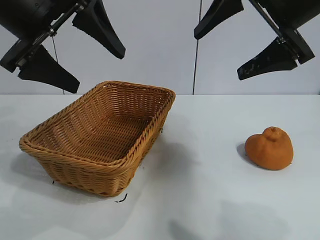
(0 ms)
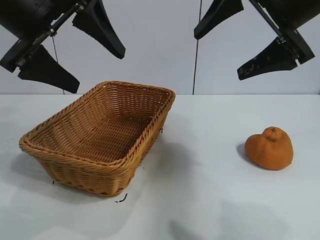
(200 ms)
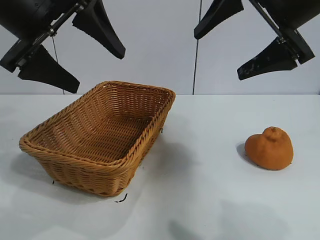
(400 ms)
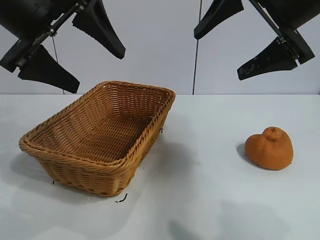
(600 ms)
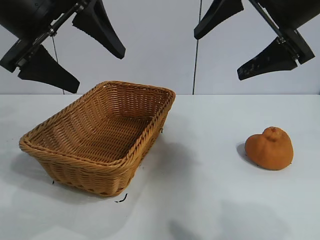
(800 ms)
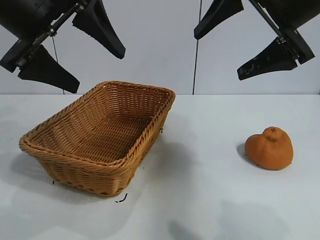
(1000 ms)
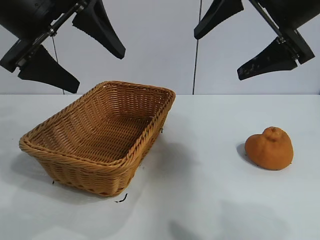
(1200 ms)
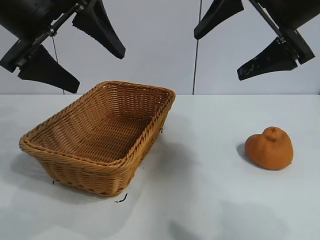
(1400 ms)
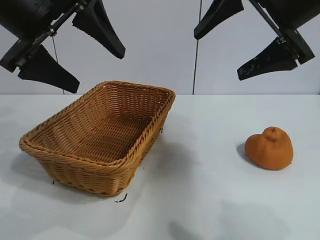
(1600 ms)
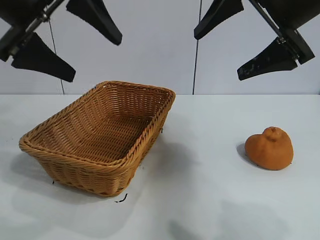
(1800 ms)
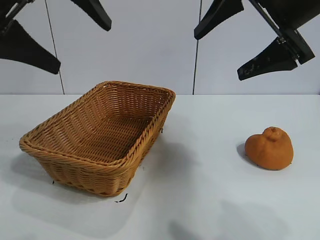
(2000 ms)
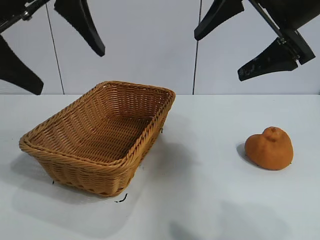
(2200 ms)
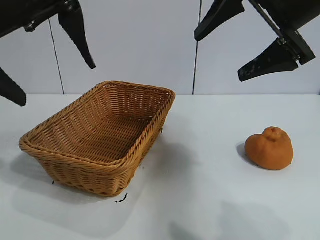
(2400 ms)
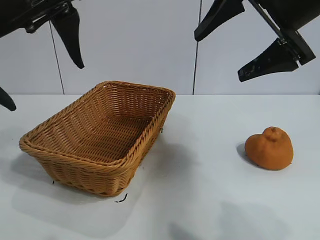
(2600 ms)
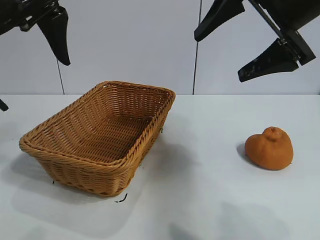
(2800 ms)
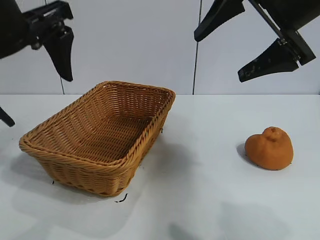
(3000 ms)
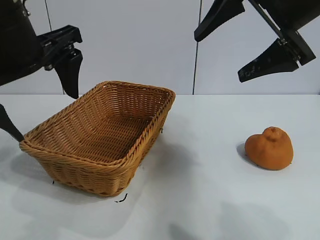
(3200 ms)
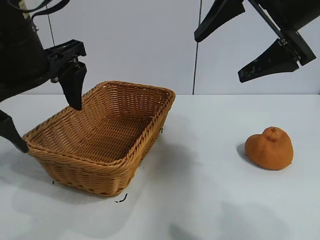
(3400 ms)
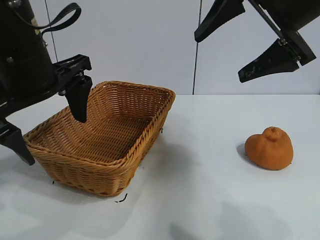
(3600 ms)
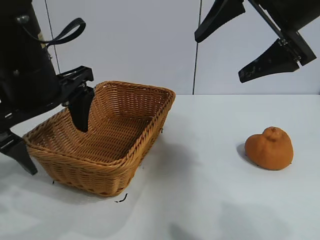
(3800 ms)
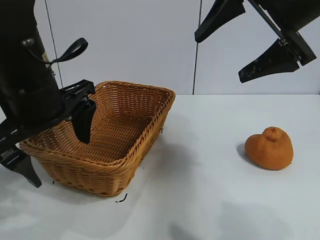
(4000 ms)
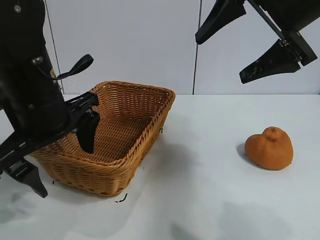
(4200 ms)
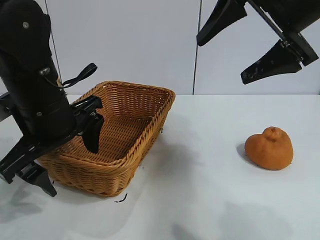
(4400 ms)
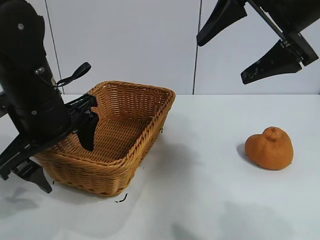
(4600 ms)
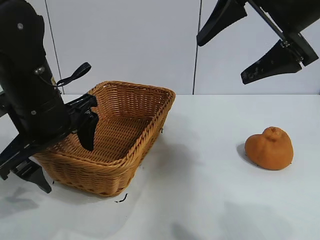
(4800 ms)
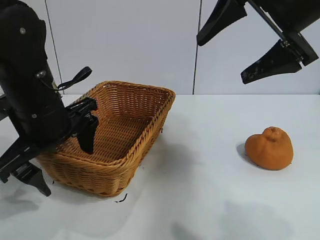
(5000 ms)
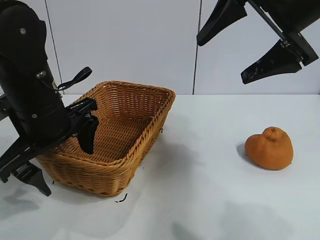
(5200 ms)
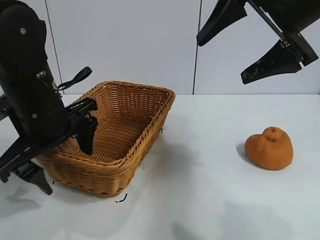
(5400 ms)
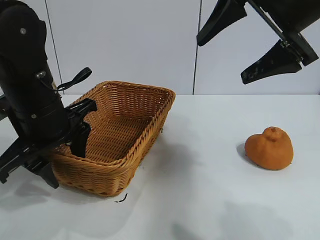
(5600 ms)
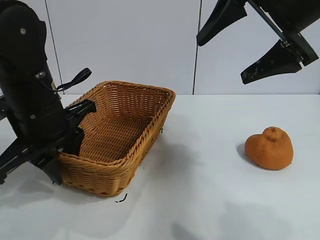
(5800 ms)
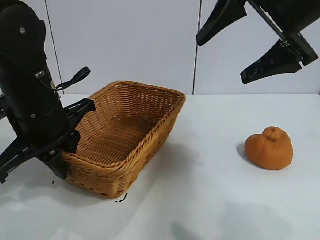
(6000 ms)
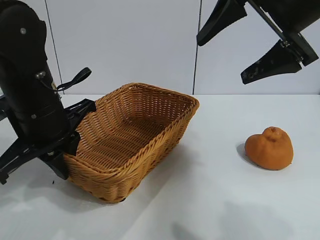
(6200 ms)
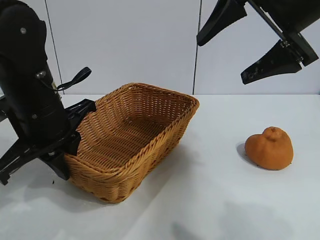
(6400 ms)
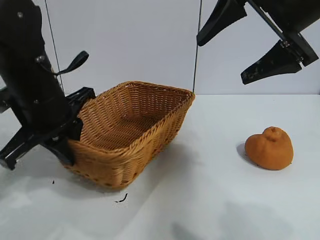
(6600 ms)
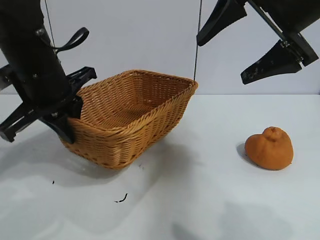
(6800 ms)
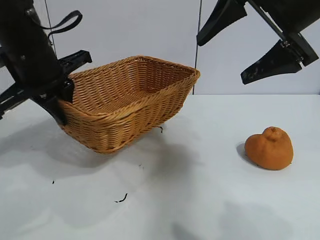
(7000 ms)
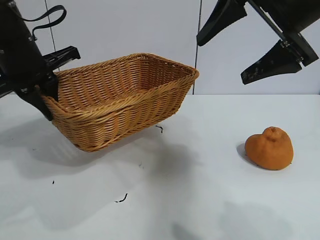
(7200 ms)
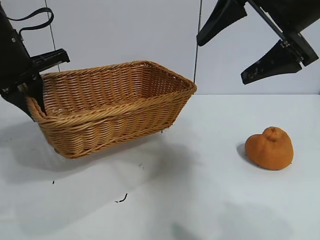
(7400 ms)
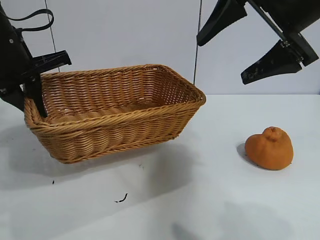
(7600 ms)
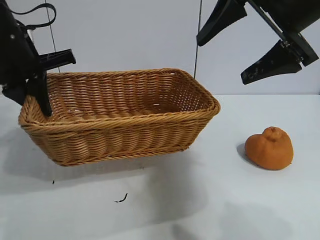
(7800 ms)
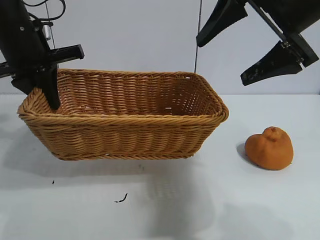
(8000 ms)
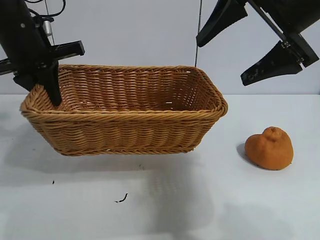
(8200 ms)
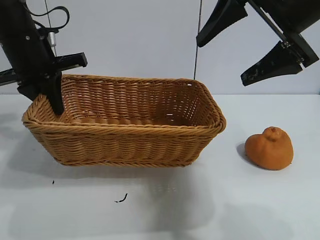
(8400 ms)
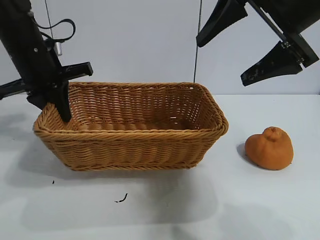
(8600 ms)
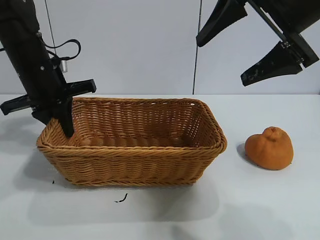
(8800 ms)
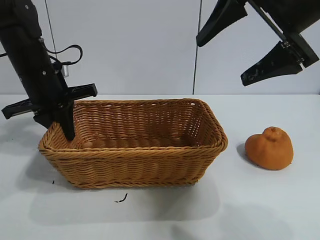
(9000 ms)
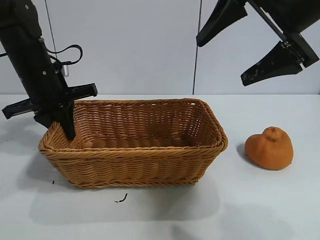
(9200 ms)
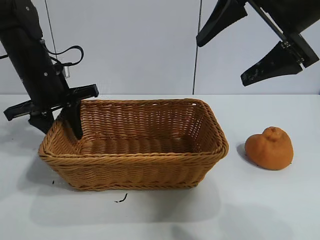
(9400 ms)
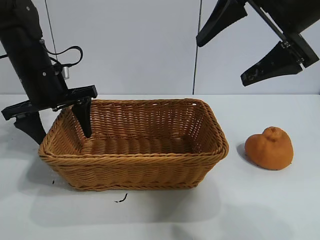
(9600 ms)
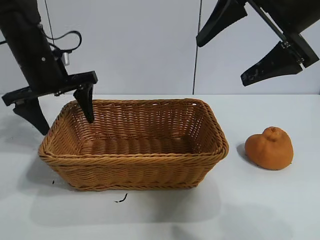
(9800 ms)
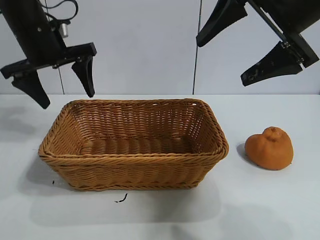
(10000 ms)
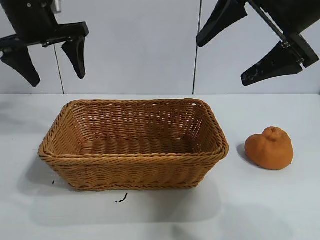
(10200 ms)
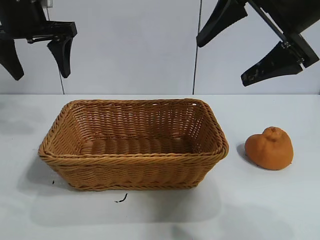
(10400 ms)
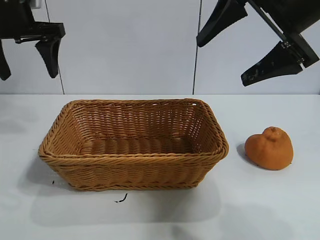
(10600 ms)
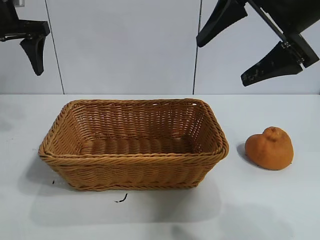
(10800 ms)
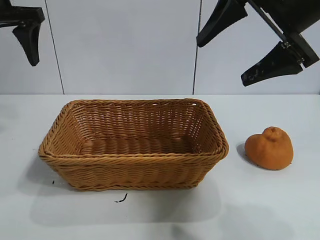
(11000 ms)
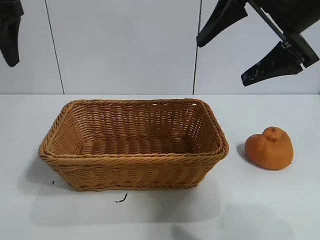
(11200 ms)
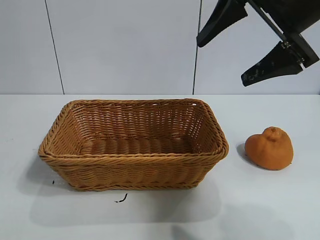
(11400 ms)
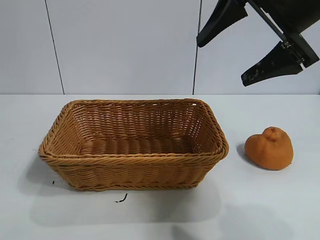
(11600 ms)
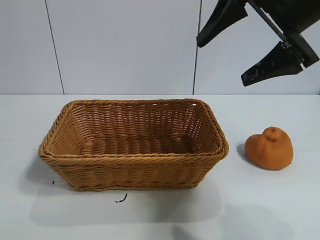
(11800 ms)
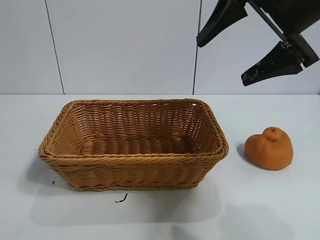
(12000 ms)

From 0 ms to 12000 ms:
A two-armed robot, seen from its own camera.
Task of the whole recording: pick up the orange and put it into the basket.
Step, from 1800 ms to 6000 ms: Grasp the basket with left gripper.
Step, from 6200 ms to 9600 ms: Place the basket in the center of view with left gripper.

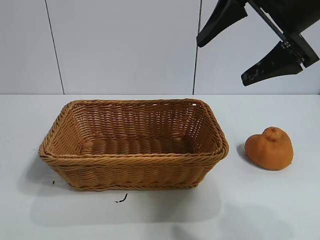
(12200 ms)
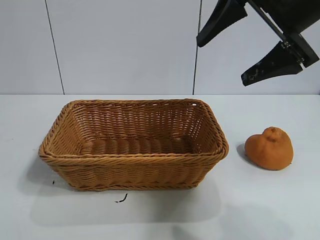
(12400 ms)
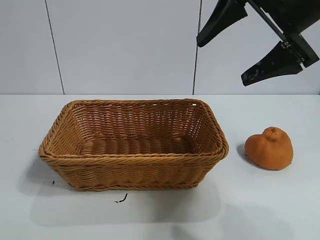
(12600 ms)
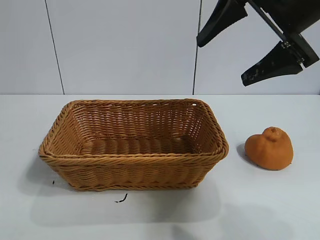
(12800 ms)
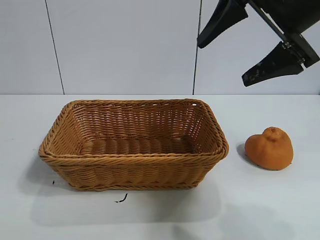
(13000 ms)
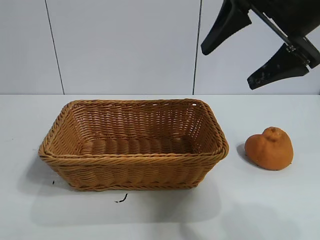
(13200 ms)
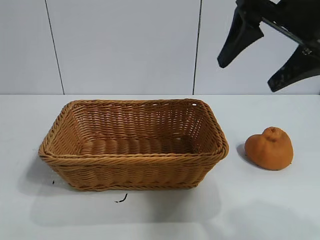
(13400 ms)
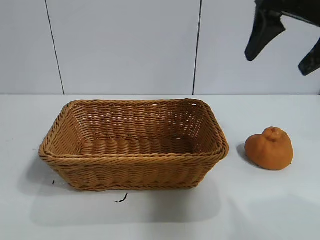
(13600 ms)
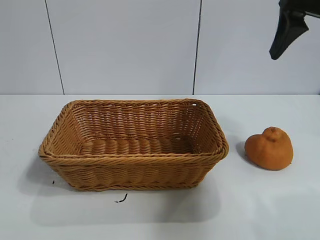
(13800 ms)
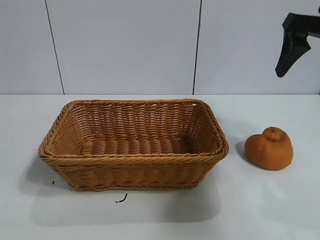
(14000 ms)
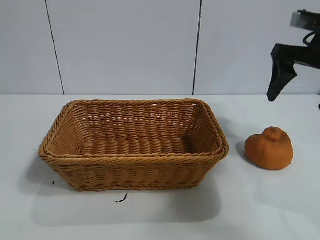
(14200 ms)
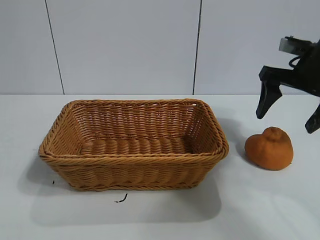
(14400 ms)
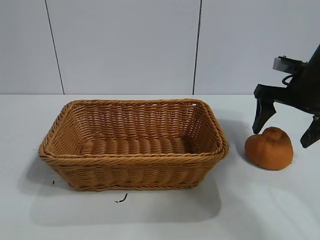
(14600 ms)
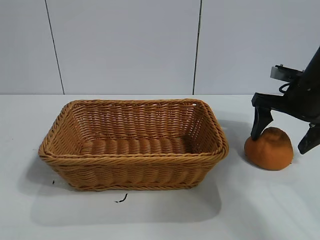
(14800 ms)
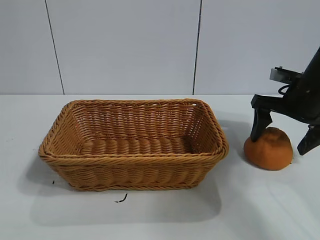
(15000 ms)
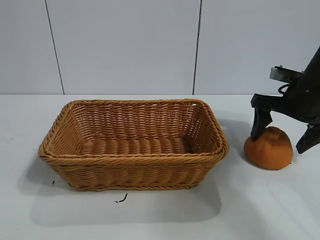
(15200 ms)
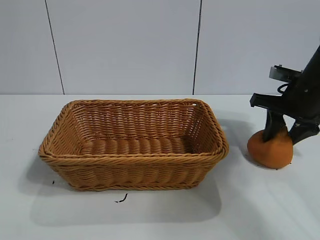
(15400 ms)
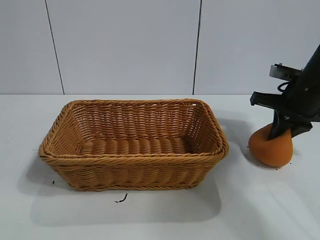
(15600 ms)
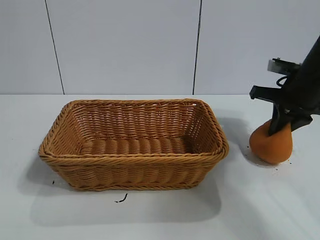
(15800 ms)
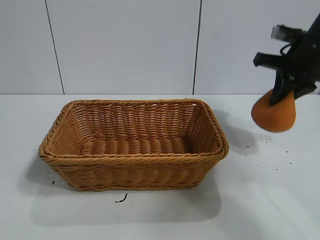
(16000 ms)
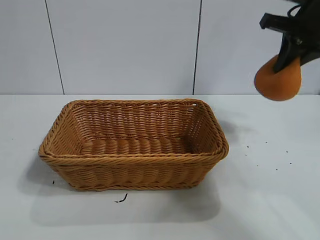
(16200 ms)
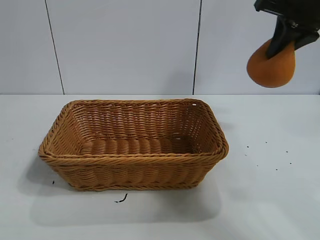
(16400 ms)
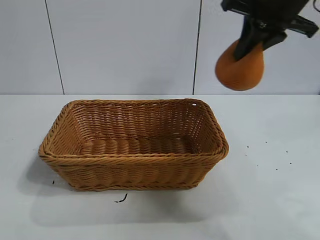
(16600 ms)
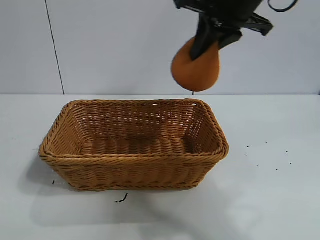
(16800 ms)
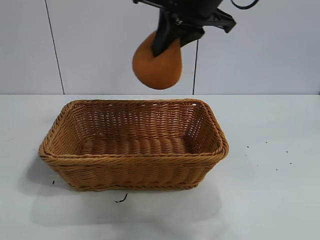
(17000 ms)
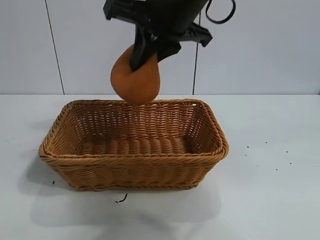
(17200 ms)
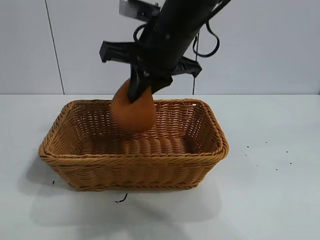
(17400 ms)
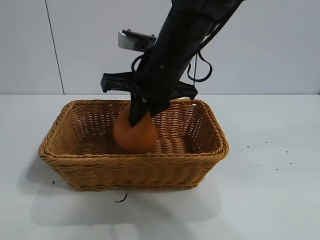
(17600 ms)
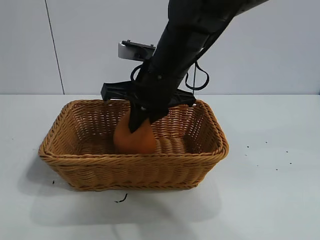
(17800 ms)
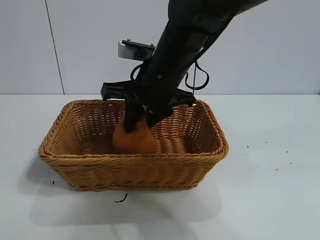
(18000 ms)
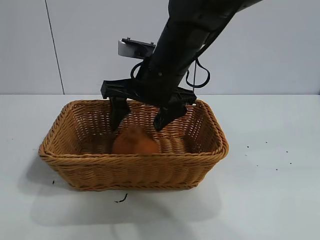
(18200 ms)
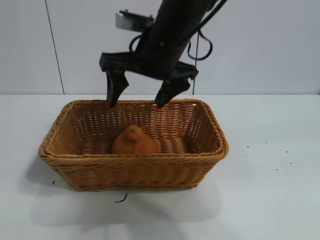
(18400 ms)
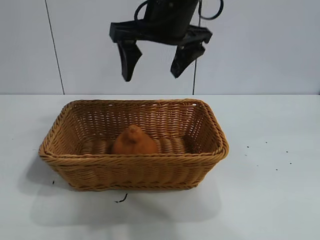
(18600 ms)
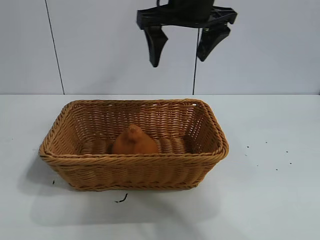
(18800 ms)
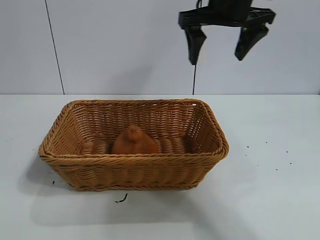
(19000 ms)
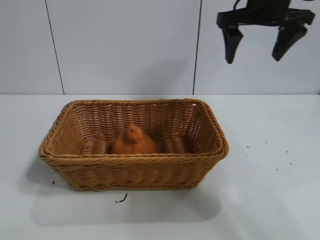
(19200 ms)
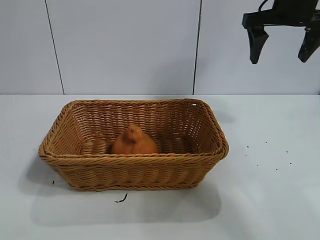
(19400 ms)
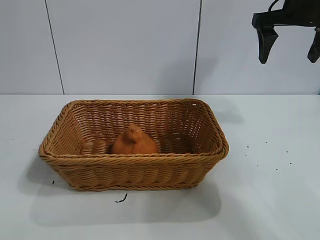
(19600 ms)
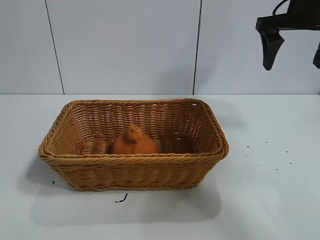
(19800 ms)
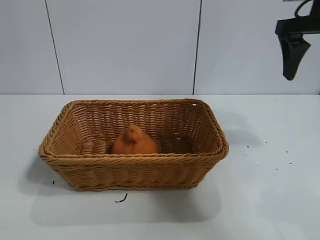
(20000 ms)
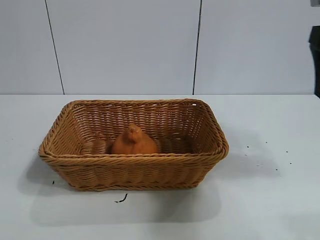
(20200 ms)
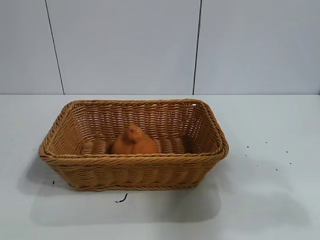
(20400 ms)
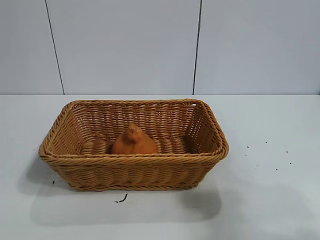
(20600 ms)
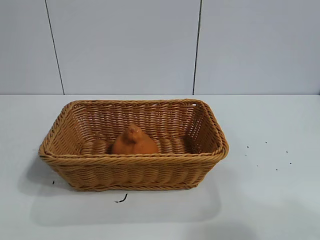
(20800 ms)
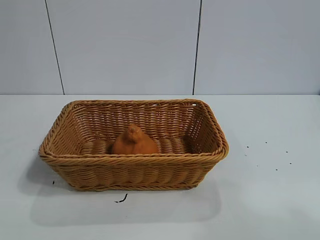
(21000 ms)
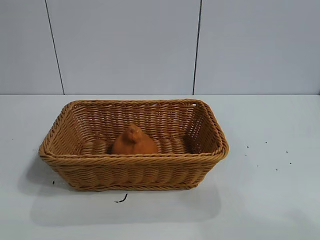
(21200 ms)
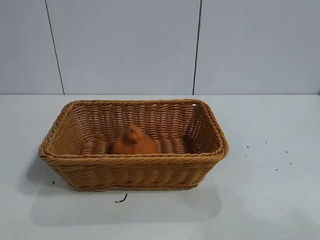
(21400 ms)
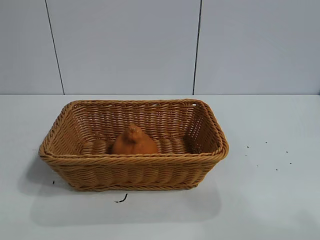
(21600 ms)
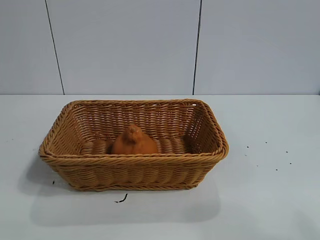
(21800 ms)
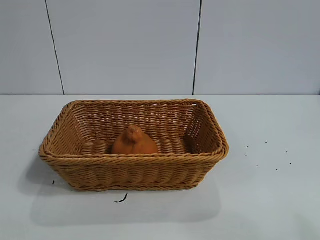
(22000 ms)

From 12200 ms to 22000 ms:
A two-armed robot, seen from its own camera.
Task of the whole recording: pick up the orange and put it into the basket.
Step, from 12200 ms to 15800 ms: Grasp the orange with right gripper.
Step, from 16000 ms to 18000 ms: Place the orange in the basket with right gripper.
